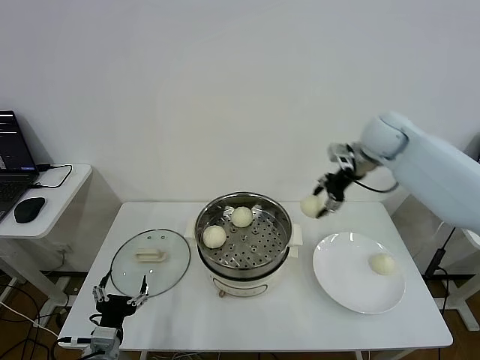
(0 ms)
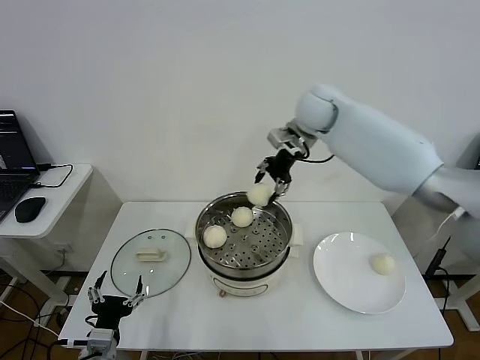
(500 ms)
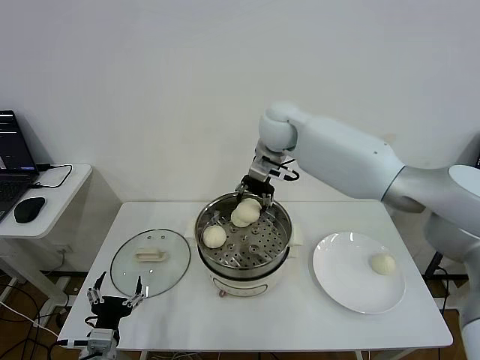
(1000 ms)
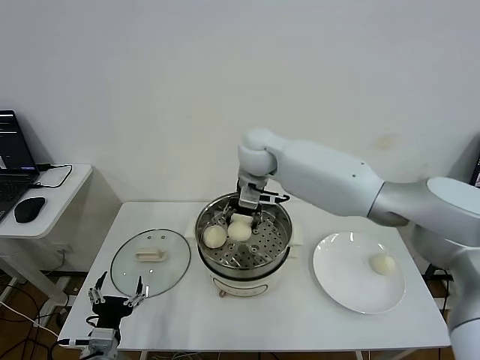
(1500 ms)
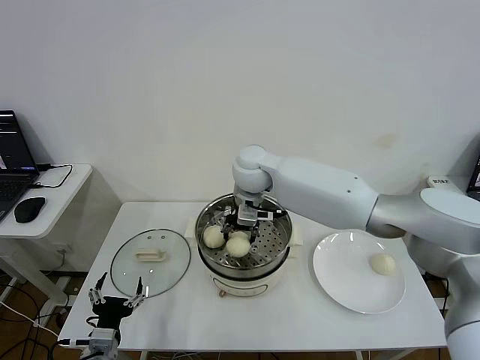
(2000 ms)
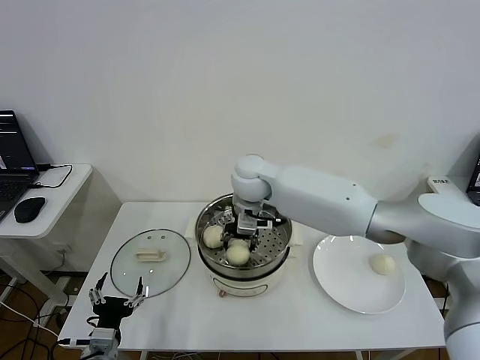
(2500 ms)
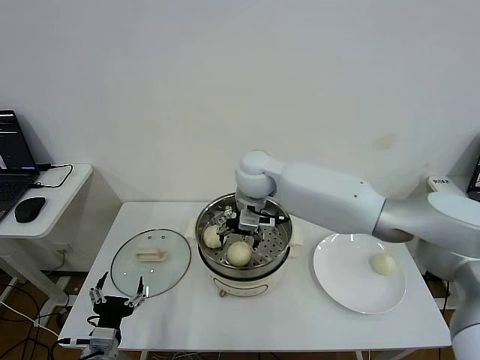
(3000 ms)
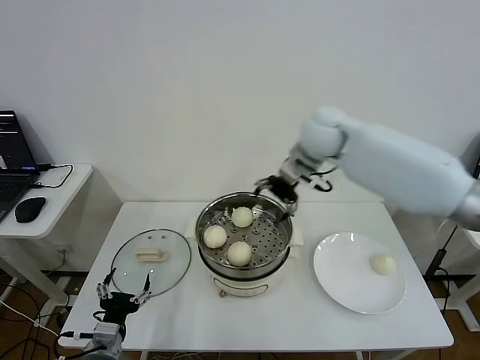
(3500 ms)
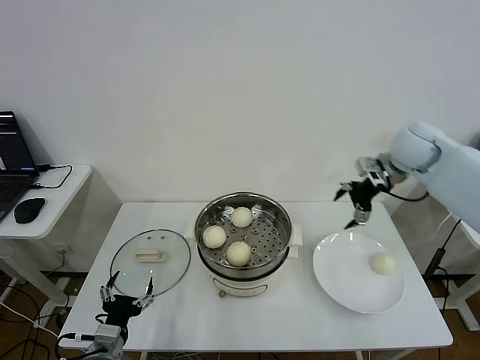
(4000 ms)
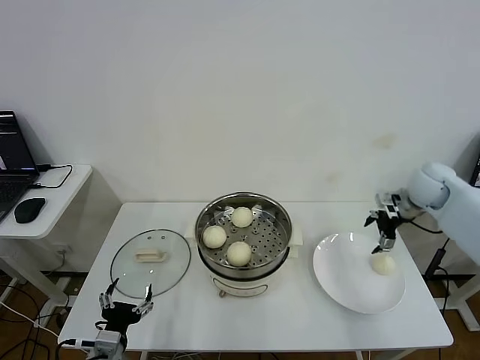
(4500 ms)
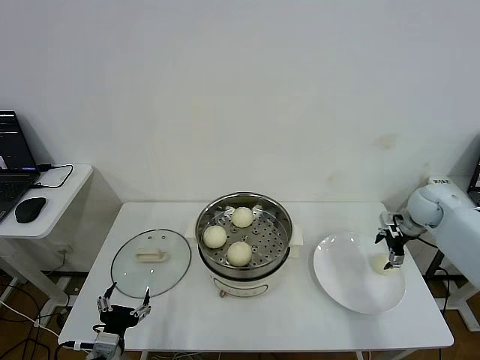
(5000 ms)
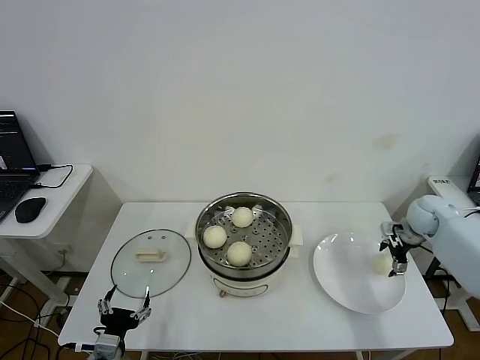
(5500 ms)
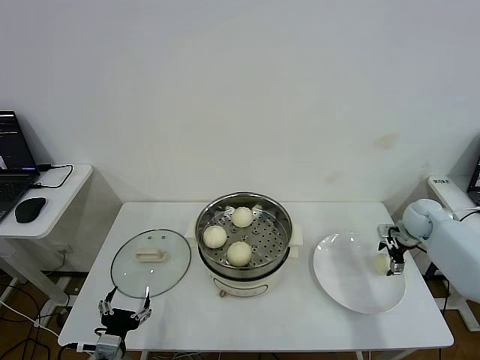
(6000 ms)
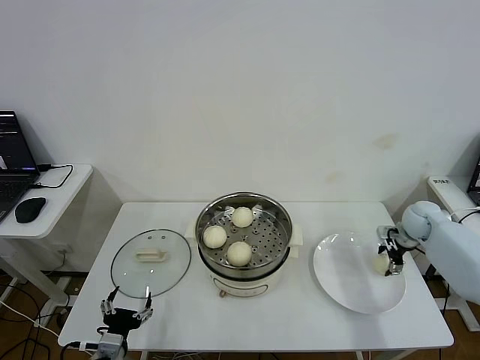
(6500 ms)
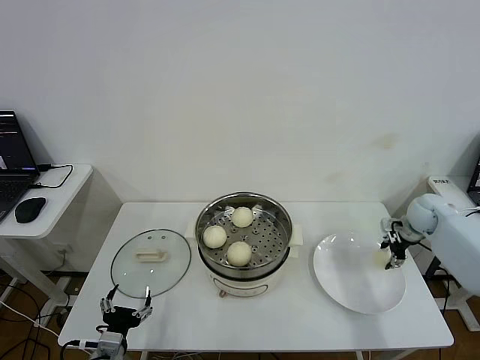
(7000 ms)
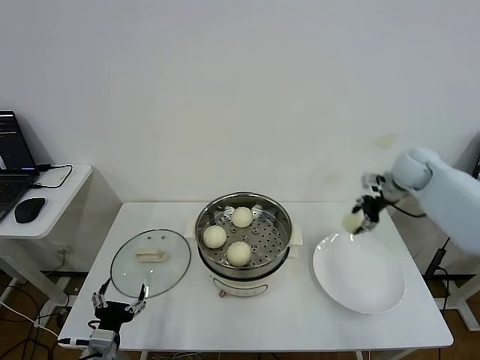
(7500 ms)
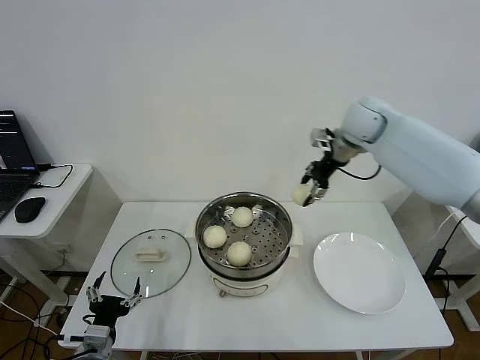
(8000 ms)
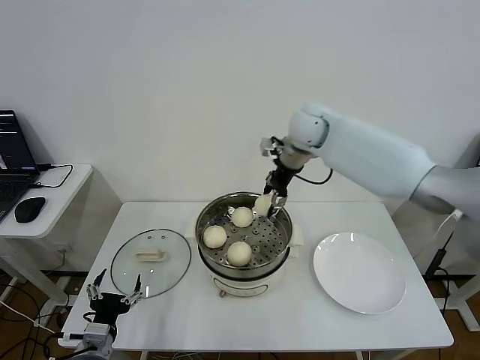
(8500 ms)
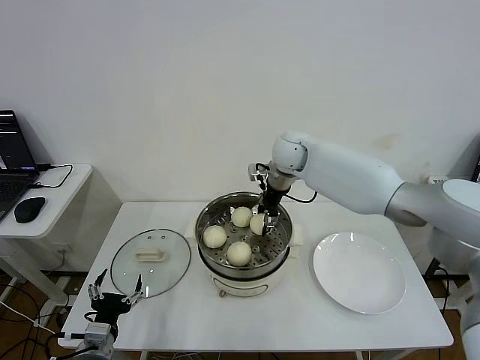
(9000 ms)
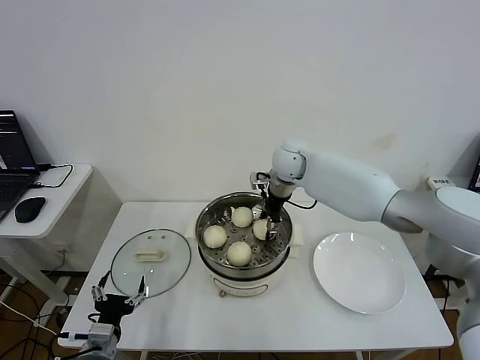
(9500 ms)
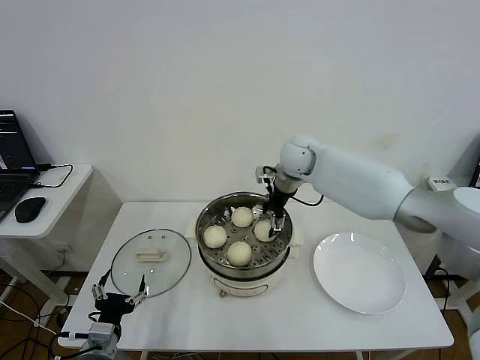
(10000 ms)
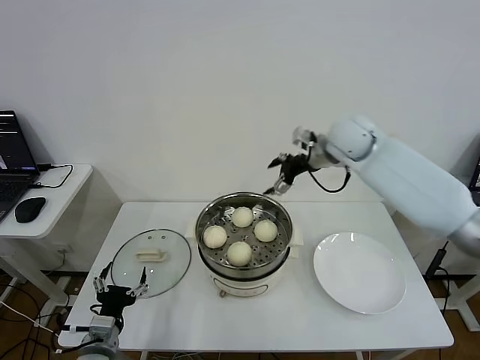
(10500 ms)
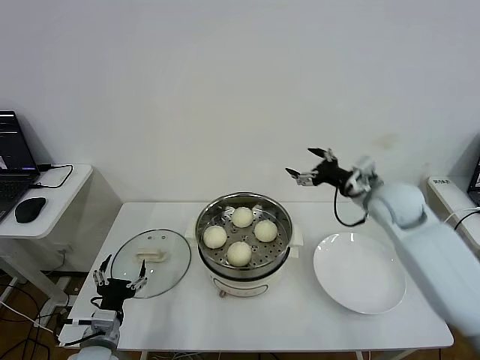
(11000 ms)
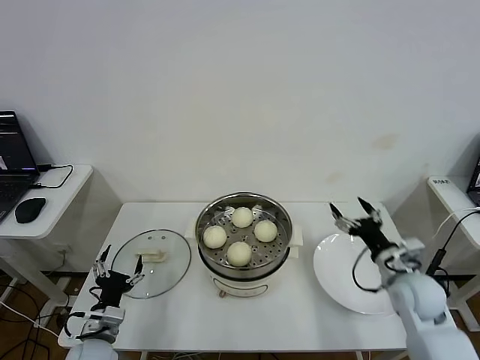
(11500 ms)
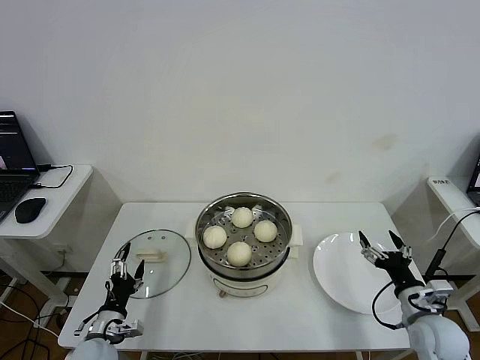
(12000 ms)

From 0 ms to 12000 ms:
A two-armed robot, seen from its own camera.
Step, from 0 ms to 2500 ms: Place the baozi on the steamer with right gripper.
Step, from 3000 ms to 6500 ms: Grasp the baozi in the plate with right gripper.
Step, from 7000 ms to 9500 ms: Place the baozi on the steamer with right gripper.
From 0 ms to 2000 ms: The right gripper is displaced to the left by approximately 25 cm.
From 2000 ms to 4000 ms: The right gripper shifts about 35 cm to the right, and opens its fingers.
From 4000 ms to 6000 ms: The right gripper is displaced downward and to the right by some 20 cm.
From 6000 ms to 8000 ms: The right gripper shifts approximately 30 cm upward and to the left, and closes.
From 8000 ms to 10000 ms: The right gripper is displaced to the left and downward by about 15 cm, and opens its fingers.
From 10000 ms to 12000 ms: The left gripper travels forward and downward by approximately 10 cm, while the right gripper goes approximately 50 cm backward, to the right and downward.

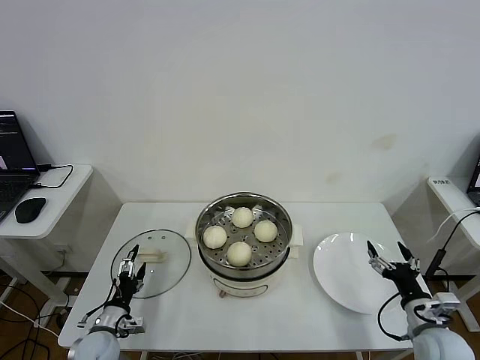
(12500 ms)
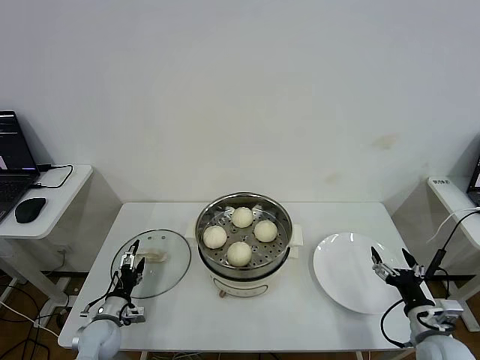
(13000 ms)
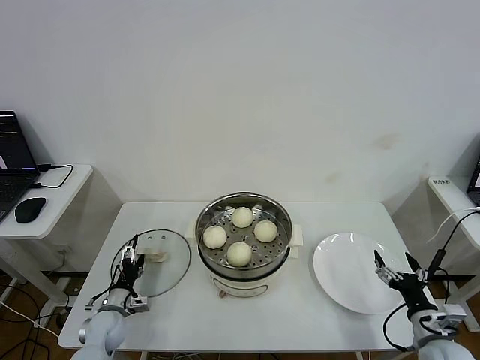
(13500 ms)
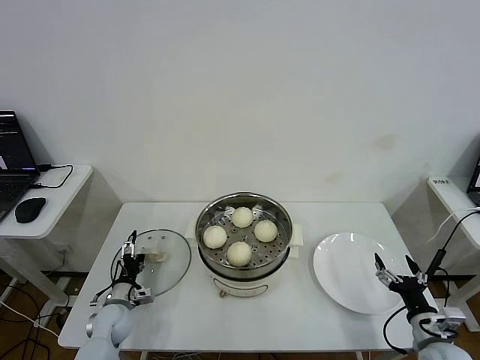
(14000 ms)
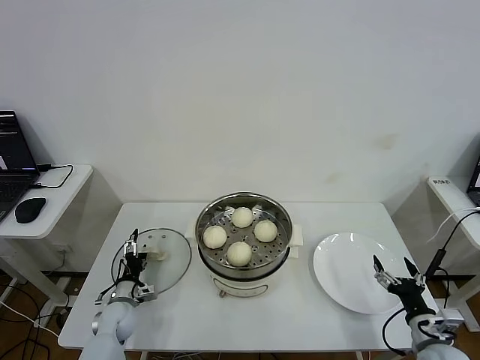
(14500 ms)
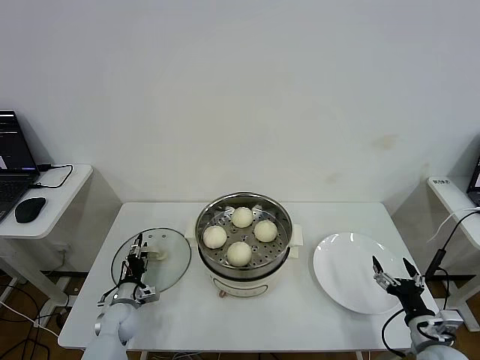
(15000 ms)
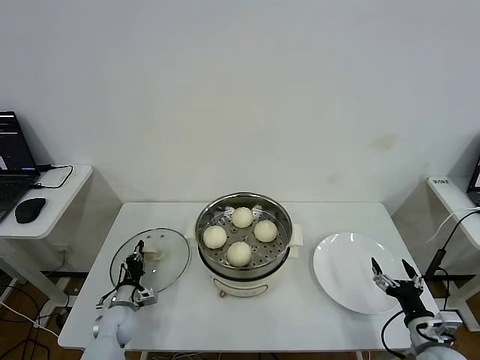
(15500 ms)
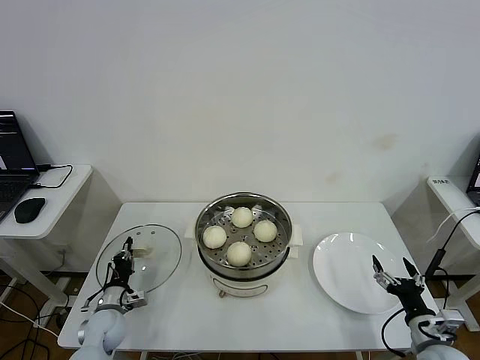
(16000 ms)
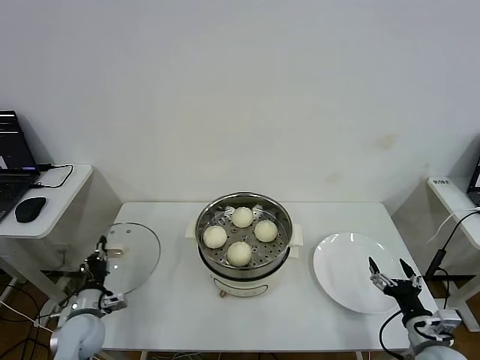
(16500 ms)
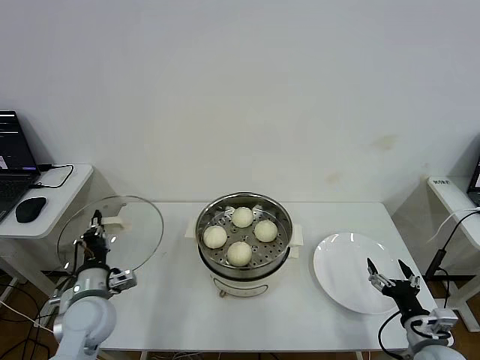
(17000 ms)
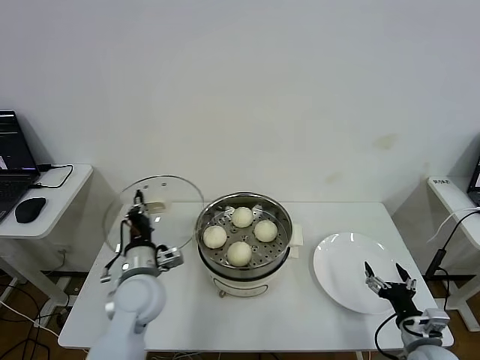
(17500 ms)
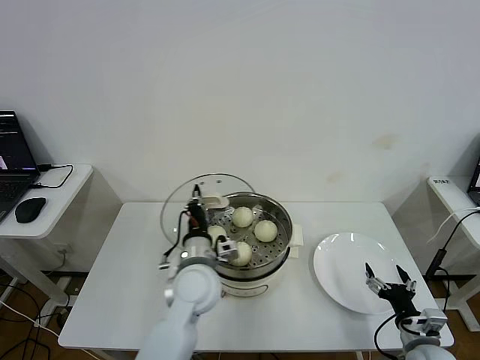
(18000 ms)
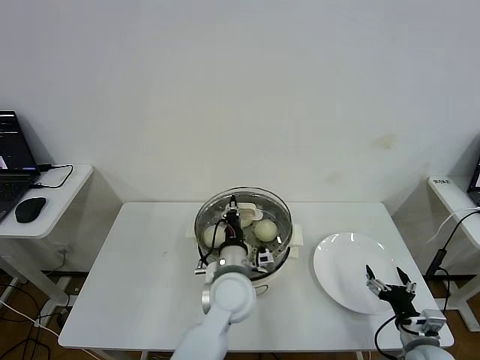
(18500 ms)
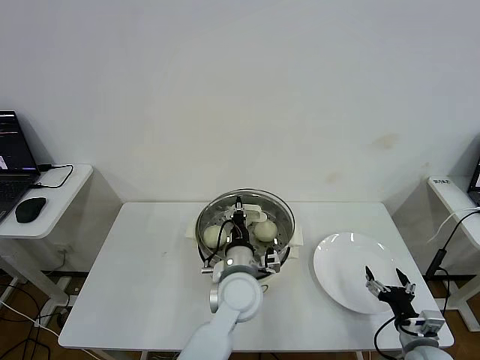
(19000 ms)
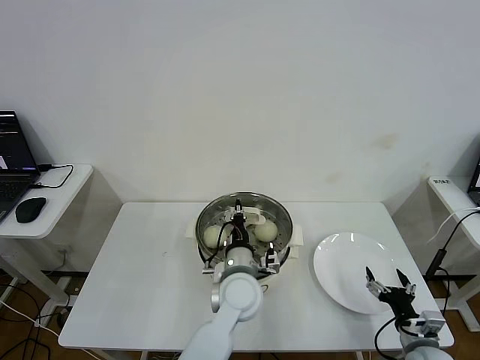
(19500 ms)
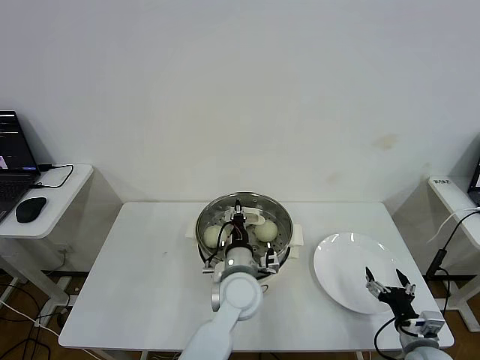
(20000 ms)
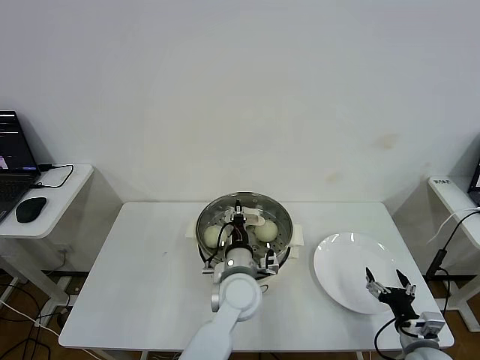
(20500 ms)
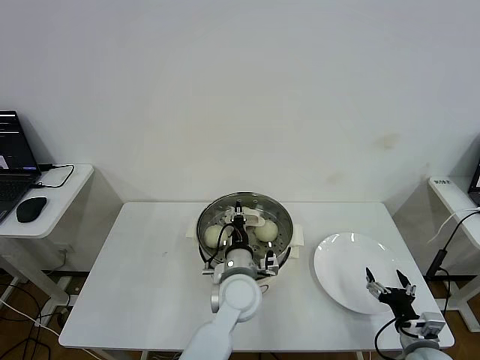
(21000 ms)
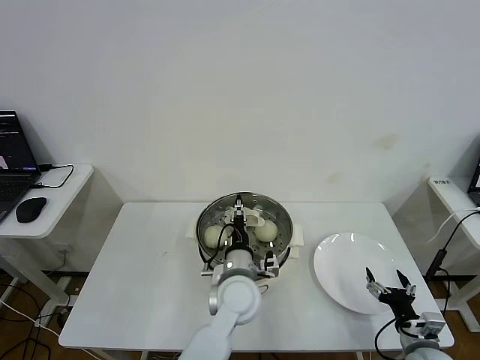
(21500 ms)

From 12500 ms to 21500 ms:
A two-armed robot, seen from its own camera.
Step, from 12500 ms to 15500 ms: Grasp the pot lid with left gripper.
Step, from 16000 ms to 21000 ms: Place the pot lid on the steamer with left gripper.
From 12500 ms to 14500 ms: The left gripper travels forward by roughly 10 cm.
From 14500 ms to 17000 ms: The left gripper moves upward, roughly 15 cm, and closes.
From 17000 ms to 19500 ms: The left gripper goes about 30 cm to the right.
From 19500 ms to 21500 ms: The left gripper opens up.

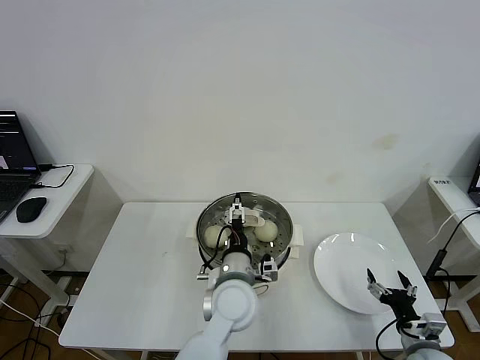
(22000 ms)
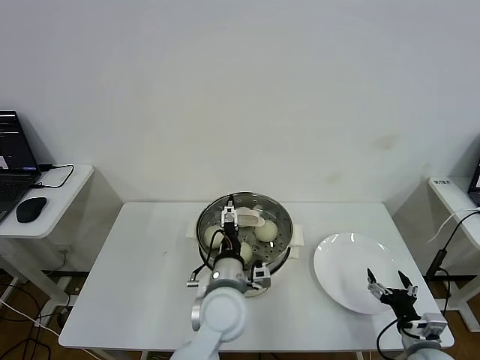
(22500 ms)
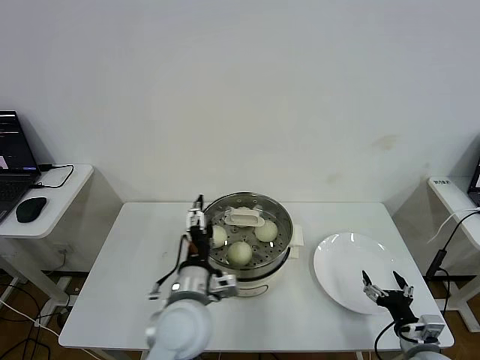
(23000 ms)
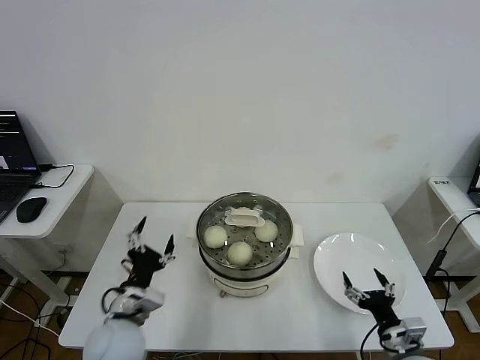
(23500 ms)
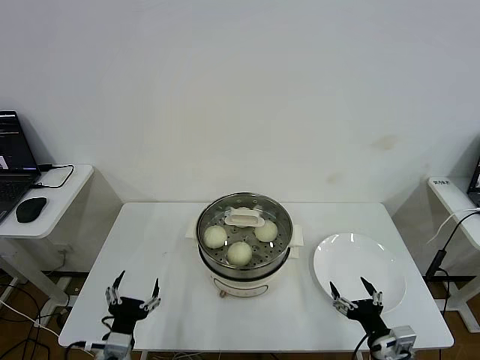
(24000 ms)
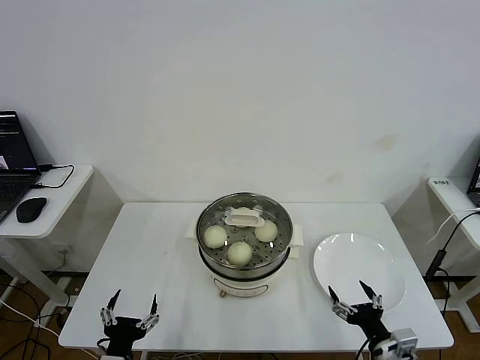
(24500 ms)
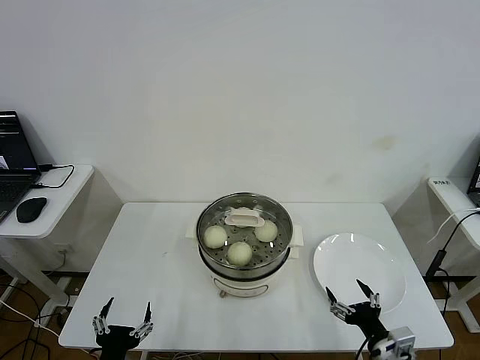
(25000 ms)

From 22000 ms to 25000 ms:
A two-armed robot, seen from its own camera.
From 22000 ms to 23500 ms: The right gripper shifts by some 5 cm; the left gripper is displaced to the left by approximately 20 cm.
From 23500 ms to 25000 ms: The left gripper goes roughly 15 cm backward and downward.

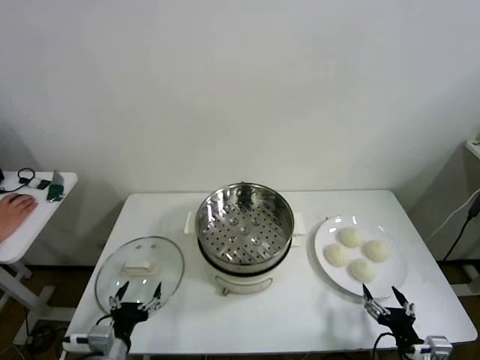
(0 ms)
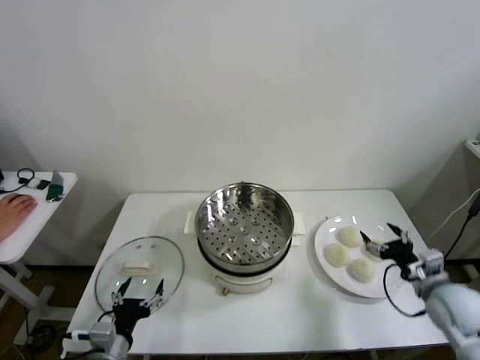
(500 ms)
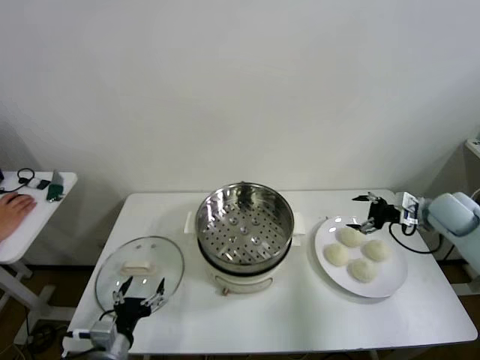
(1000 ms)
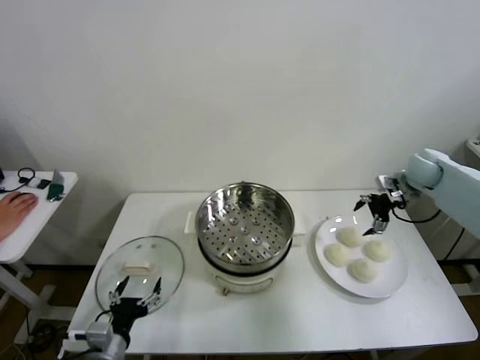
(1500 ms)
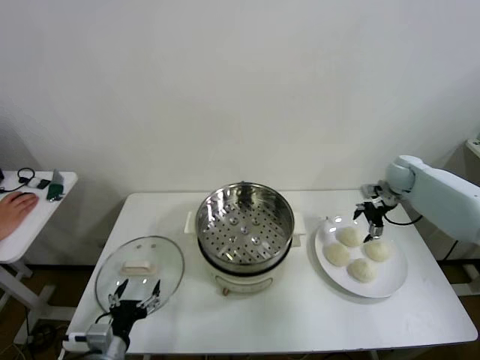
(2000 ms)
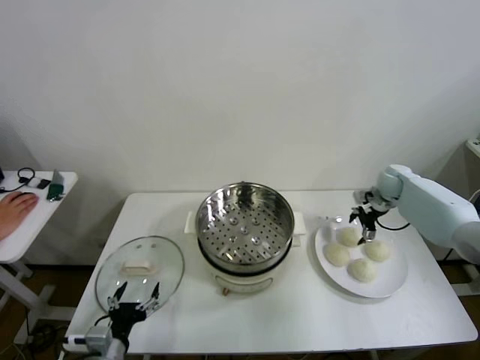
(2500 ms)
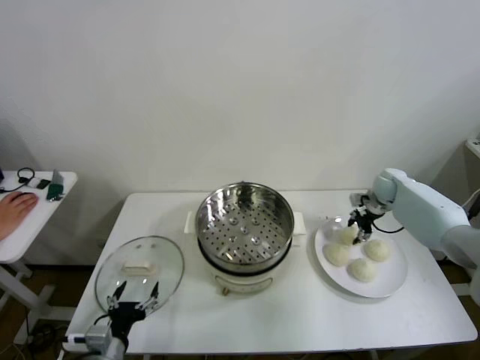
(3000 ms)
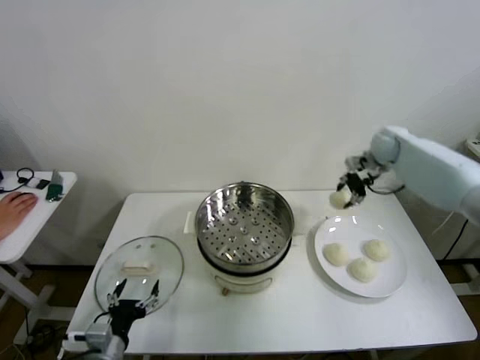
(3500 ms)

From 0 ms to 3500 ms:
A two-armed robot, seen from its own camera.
Step, from 0 ms to 2500 ms: Grasp the baozi in the plate with right gripper.
From 2000 ms to 3500 ms: The right gripper heads upward and to the left, covering approximately 15 cm, and closes its fingers.
